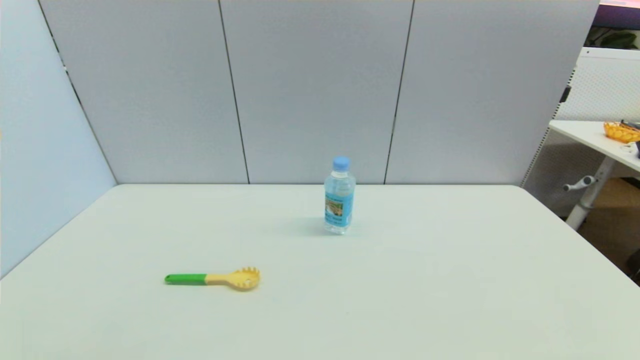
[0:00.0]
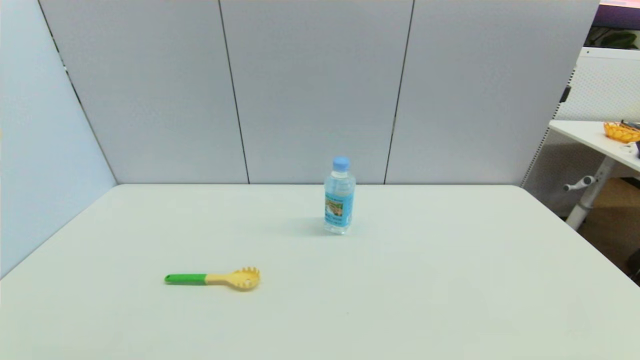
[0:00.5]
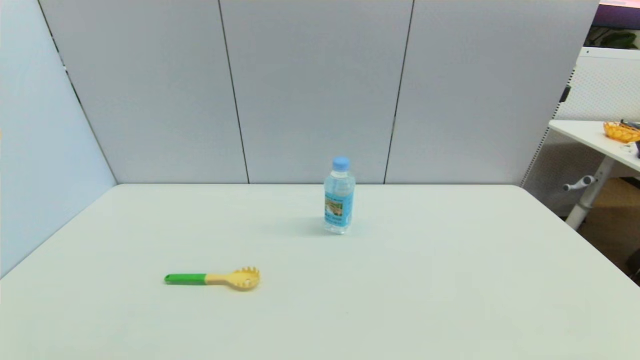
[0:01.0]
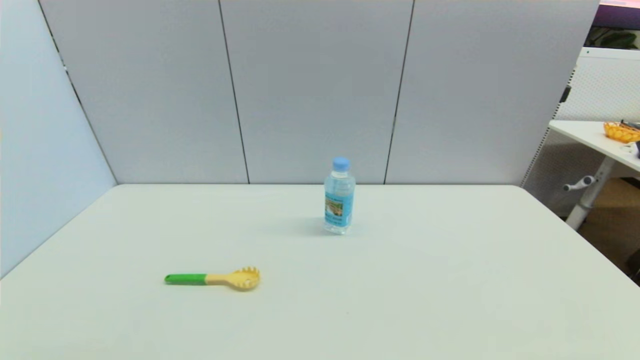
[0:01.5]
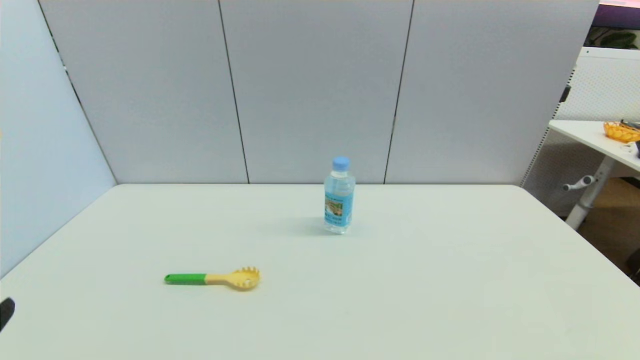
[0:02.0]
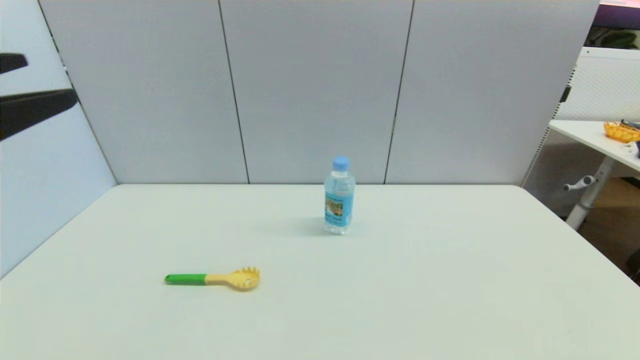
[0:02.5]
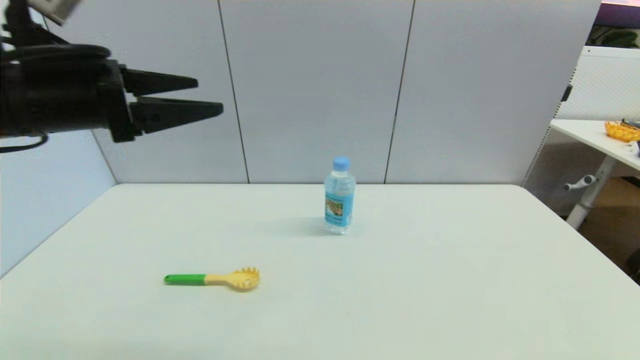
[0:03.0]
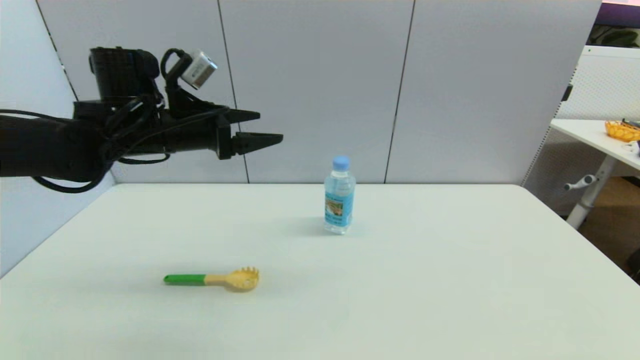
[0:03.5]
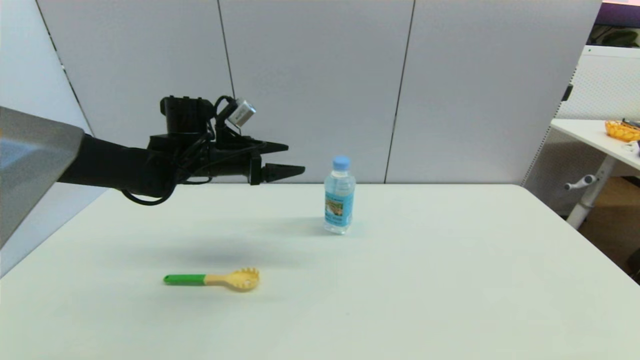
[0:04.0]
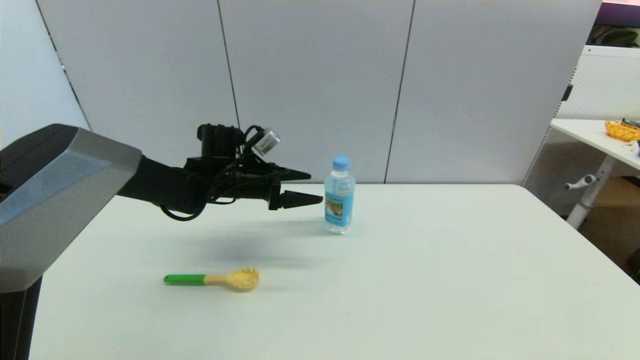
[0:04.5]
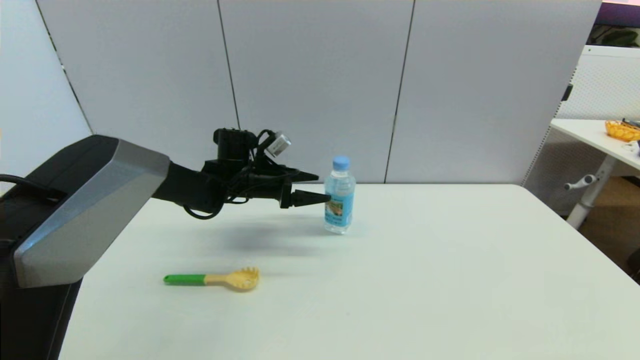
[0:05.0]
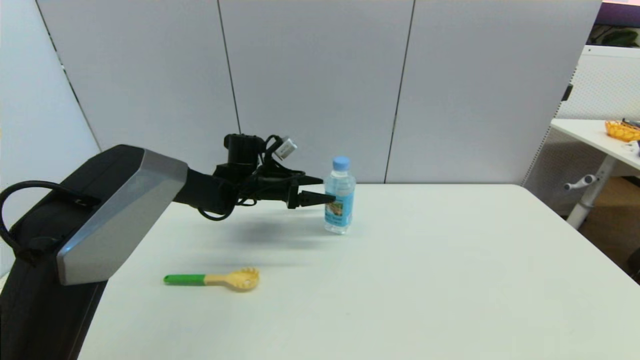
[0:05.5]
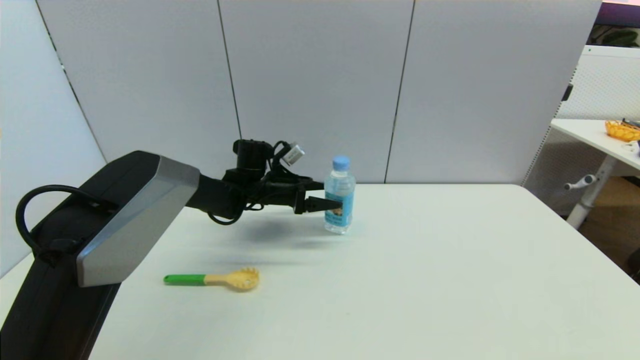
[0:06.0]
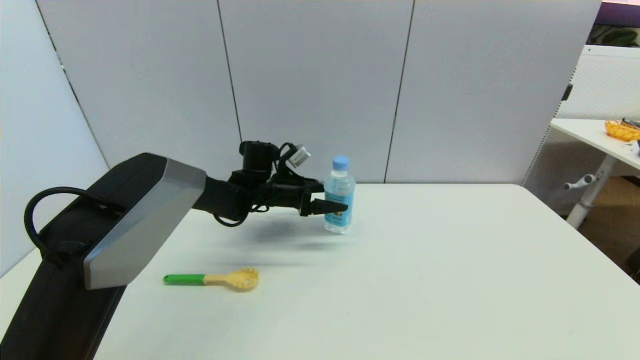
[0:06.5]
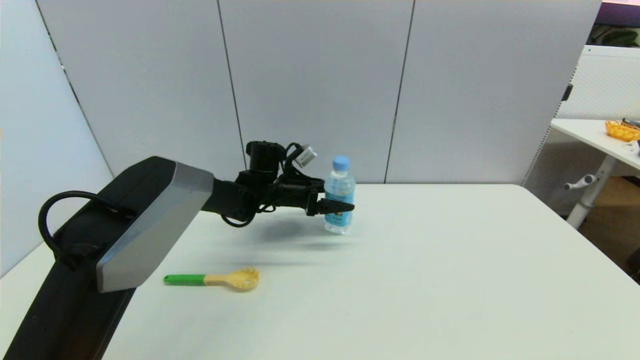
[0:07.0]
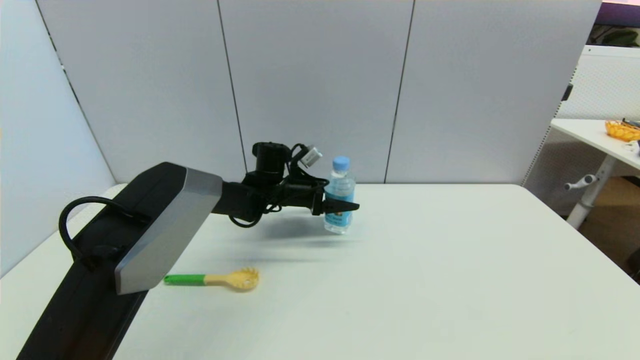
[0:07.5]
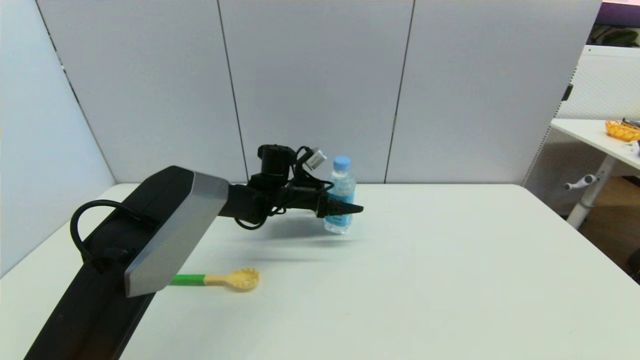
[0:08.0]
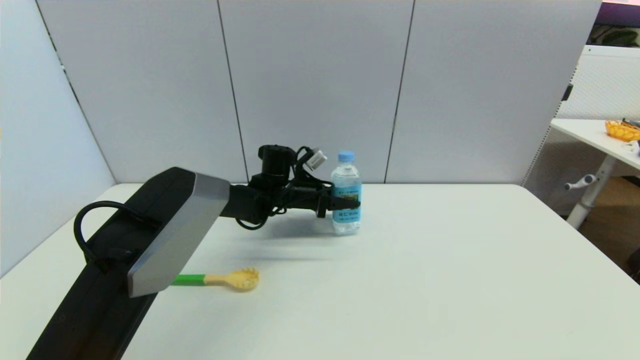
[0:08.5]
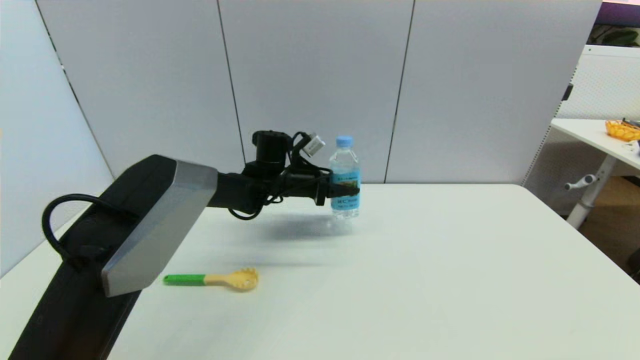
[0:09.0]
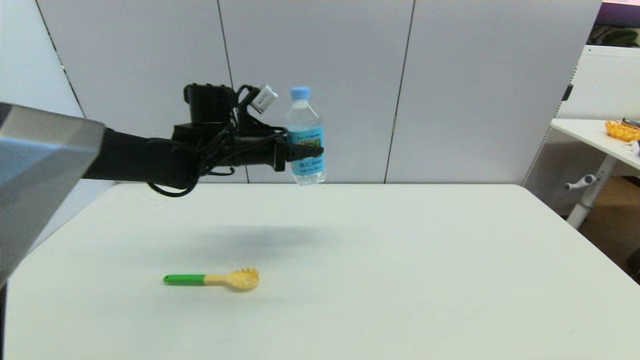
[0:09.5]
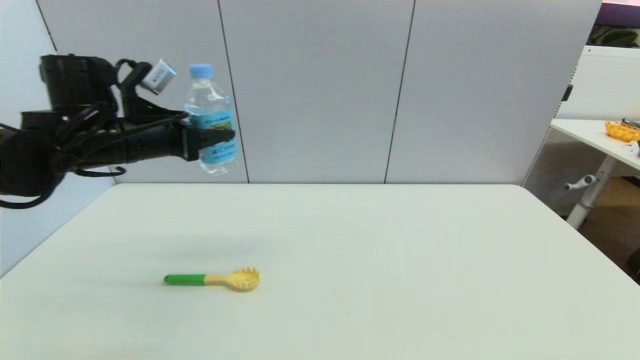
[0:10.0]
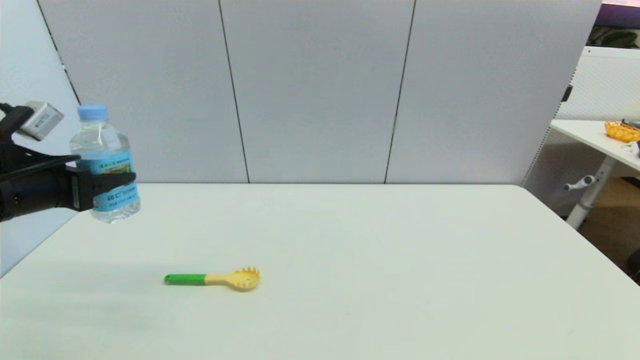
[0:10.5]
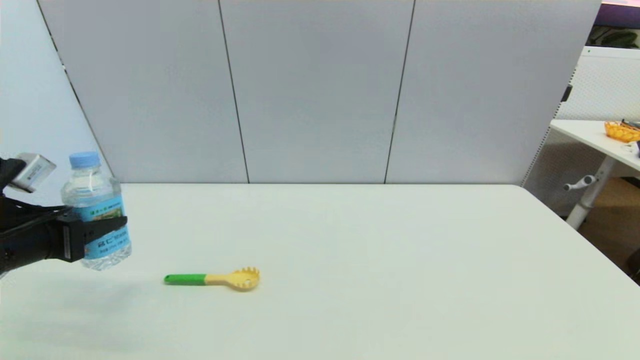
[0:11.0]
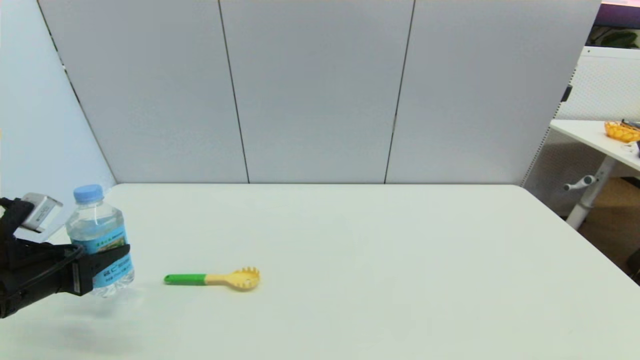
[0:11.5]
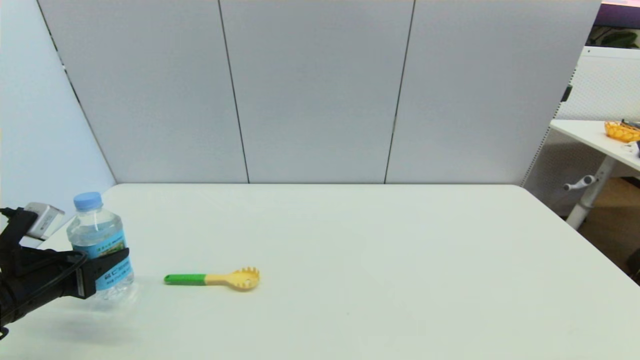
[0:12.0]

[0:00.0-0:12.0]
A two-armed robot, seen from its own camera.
Step, 0:02.0 to 0:08.0: Grasp the soda water with left gripper.
0:02.0 to 0:04.0: The left gripper shifts about 40 cm forward.
0:04.0 to 0:06.0: The left gripper travels downward, to the right and forward by some 15 cm.
0:06.0 to 0:08.0: The grippers move only a little.
0:08.0 to 0:10.0: The left gripper is displaced to the left, upward and backward by approximately 30 cm, and closes its fingers.
0:10.0 to 0:12.0: The left gripper travels downward, backward and to the left by roughly 20 cm.

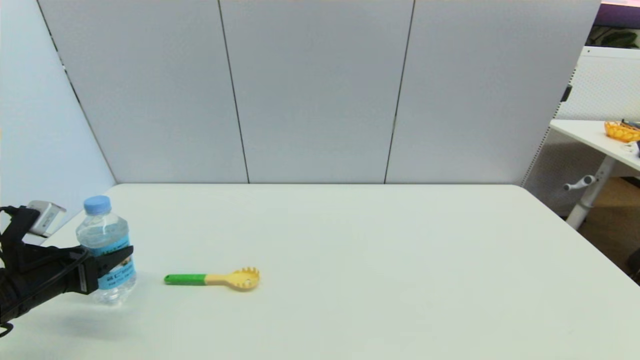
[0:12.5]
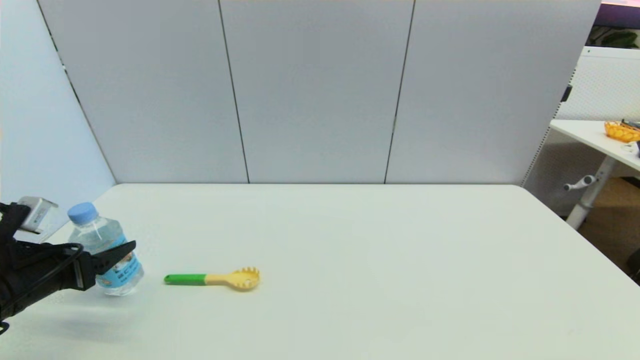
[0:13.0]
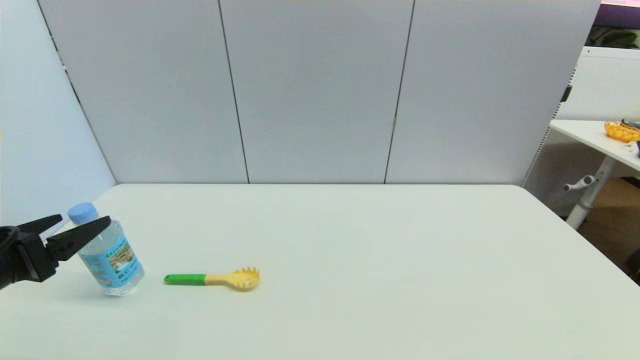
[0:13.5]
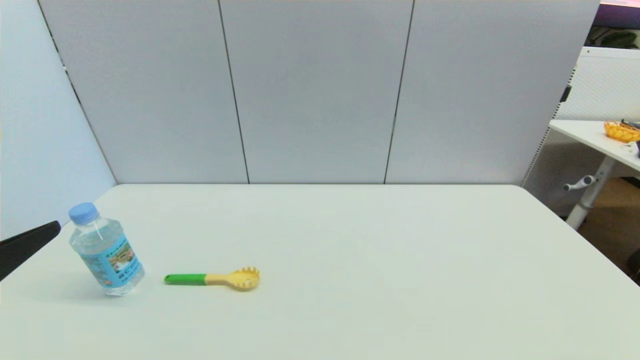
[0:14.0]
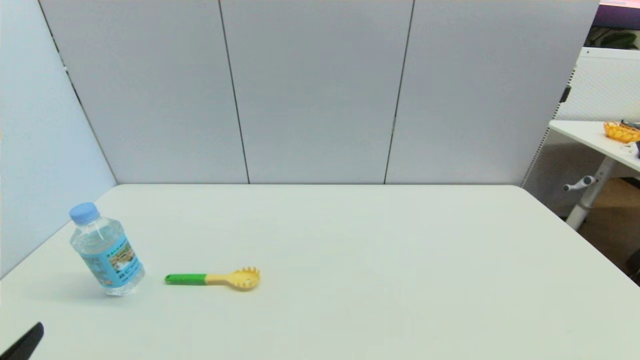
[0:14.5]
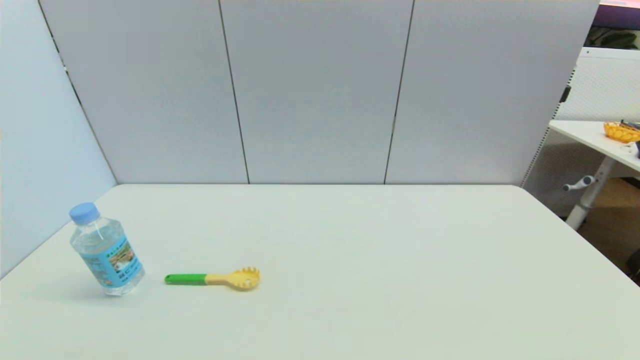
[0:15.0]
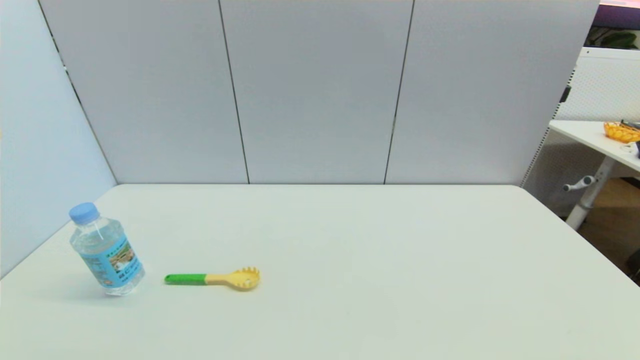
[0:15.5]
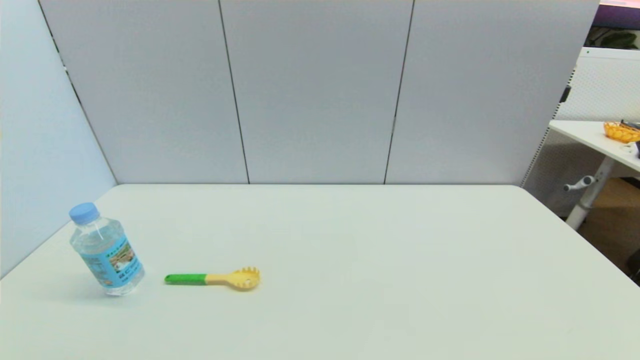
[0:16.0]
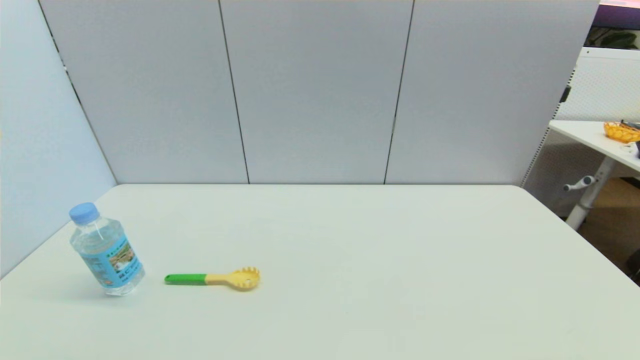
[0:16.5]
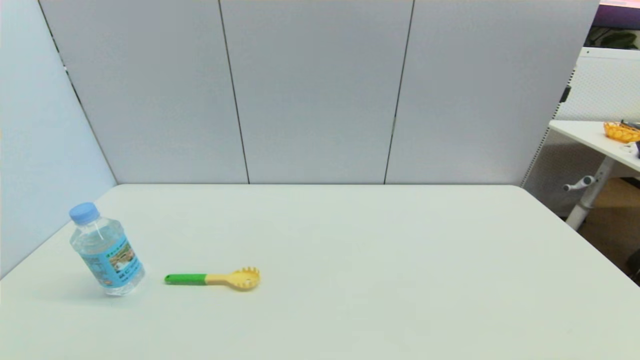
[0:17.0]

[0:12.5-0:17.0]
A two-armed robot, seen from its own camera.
0:12.5 to 0:14.5: The left gripper is displaced backward by roughly 20 cm, and opens.

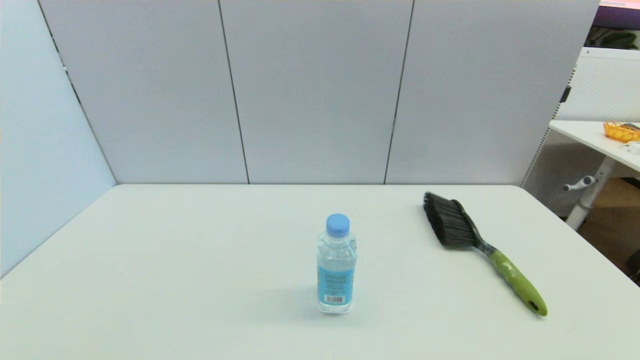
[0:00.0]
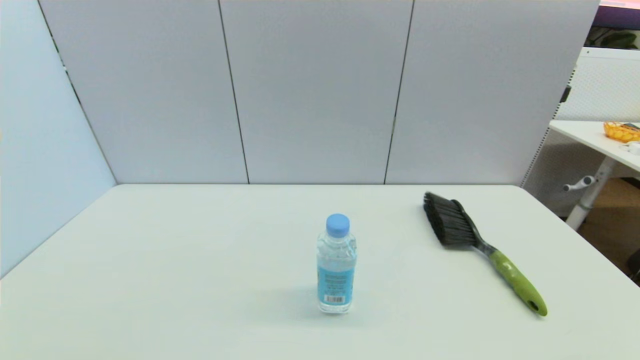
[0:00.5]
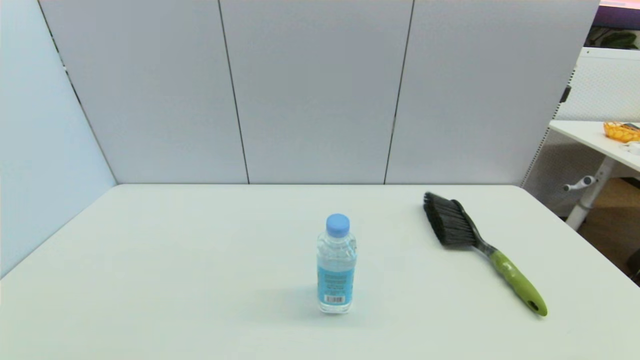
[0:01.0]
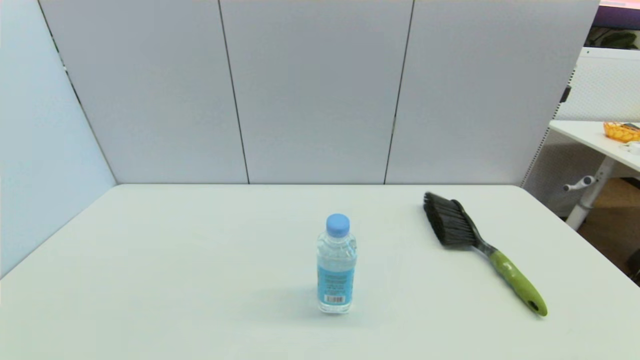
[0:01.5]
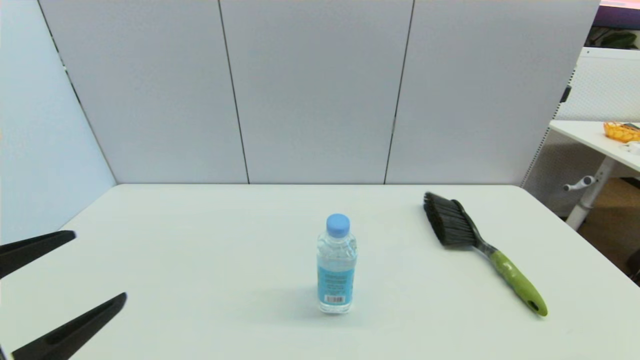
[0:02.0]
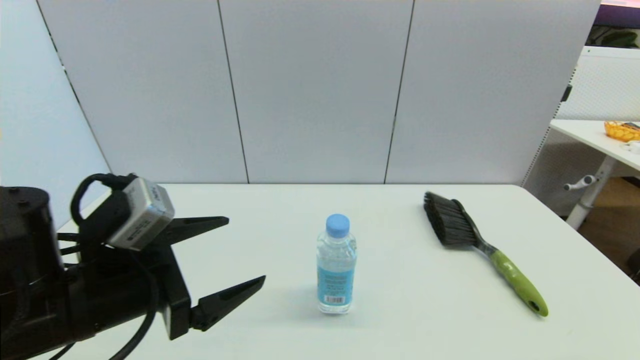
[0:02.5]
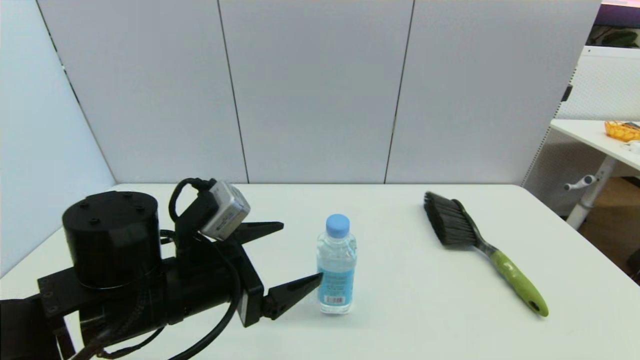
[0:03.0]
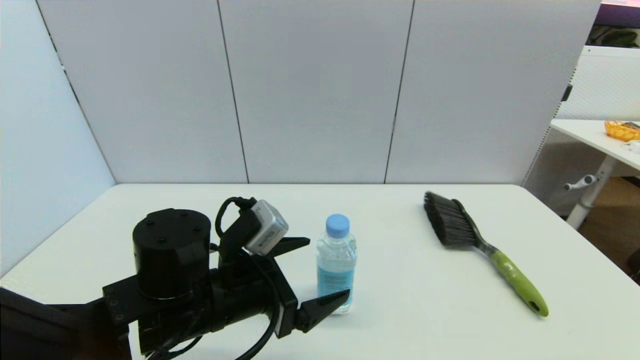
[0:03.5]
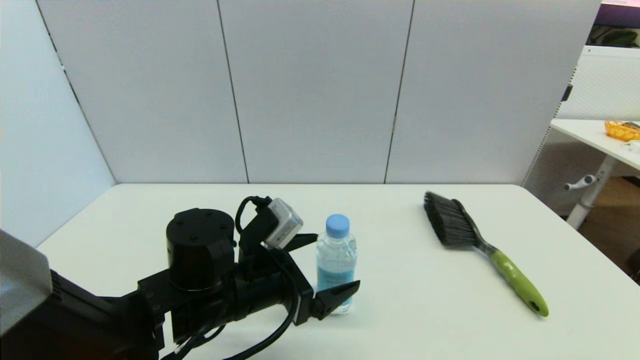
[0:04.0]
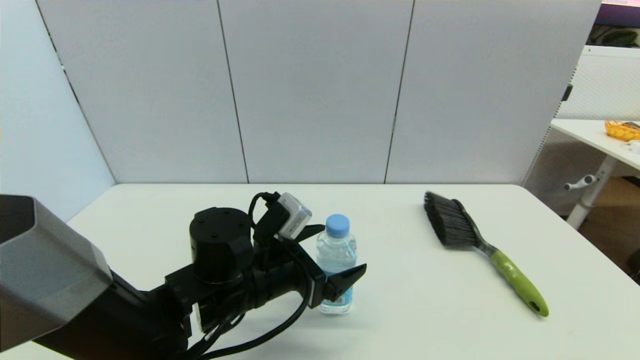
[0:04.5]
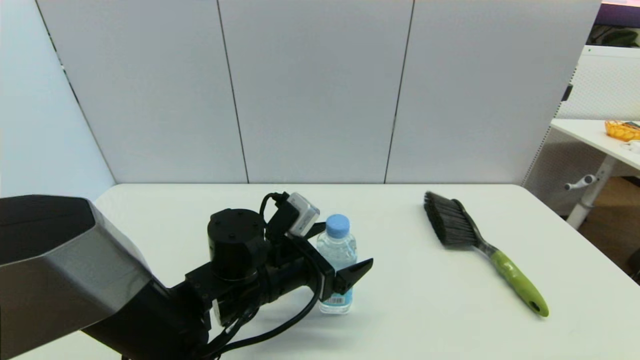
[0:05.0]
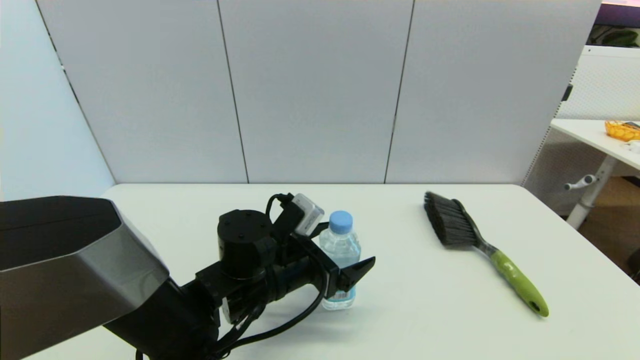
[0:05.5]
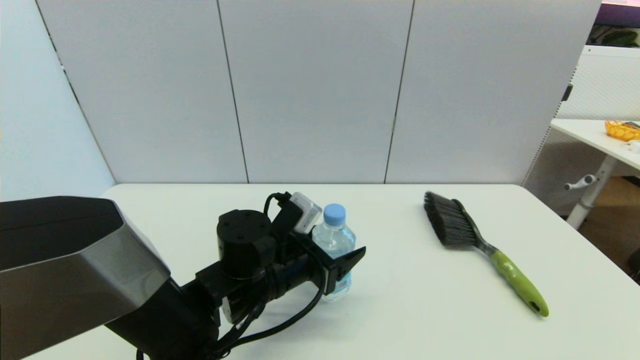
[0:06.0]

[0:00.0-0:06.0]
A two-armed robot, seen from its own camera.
0:00.0 to 0:02.0: The left gripper heads upward and forward, covering some 15 cm.
0:02.0 to 0:04.0: The left gripper is displaced to the right, forward and downward by roughly 25 cm.
0:04.0 to 0:06.0: The left gripper changes place by some 5 cm, and closes up.
